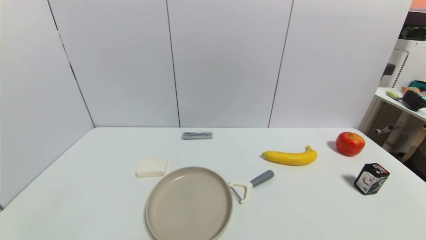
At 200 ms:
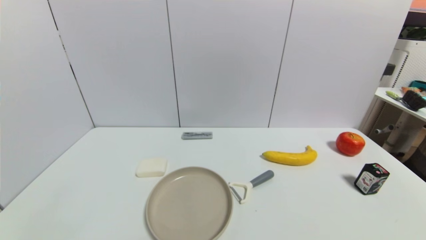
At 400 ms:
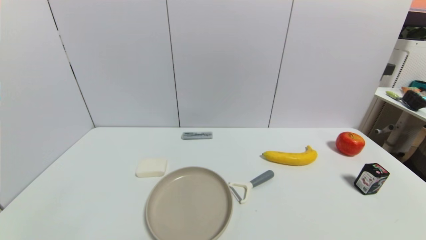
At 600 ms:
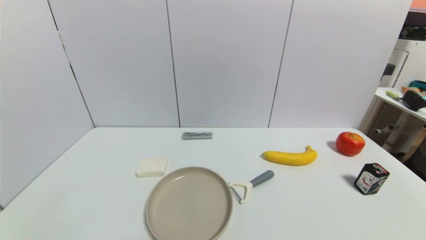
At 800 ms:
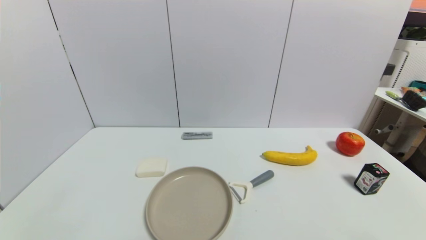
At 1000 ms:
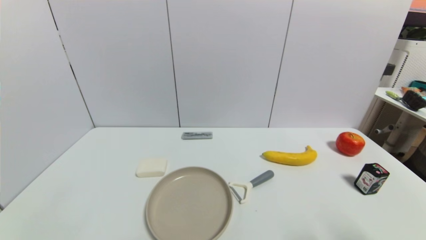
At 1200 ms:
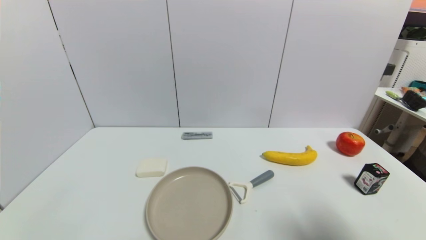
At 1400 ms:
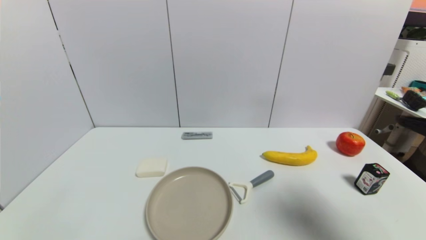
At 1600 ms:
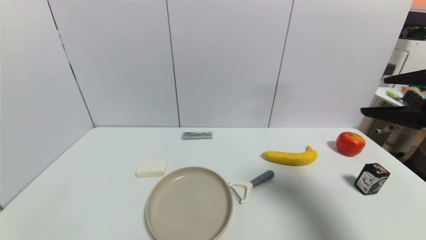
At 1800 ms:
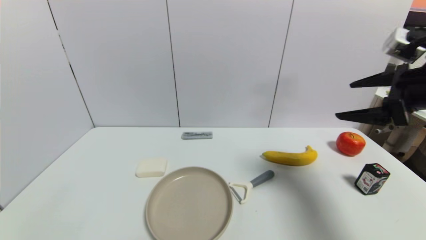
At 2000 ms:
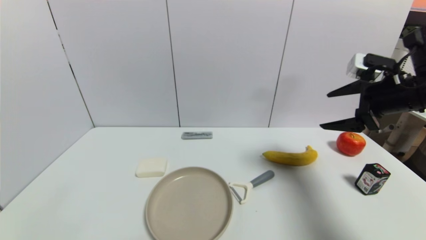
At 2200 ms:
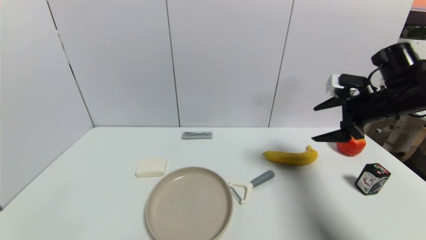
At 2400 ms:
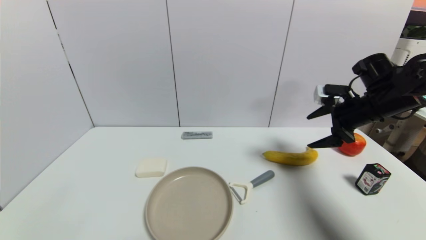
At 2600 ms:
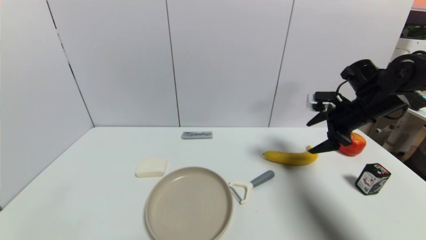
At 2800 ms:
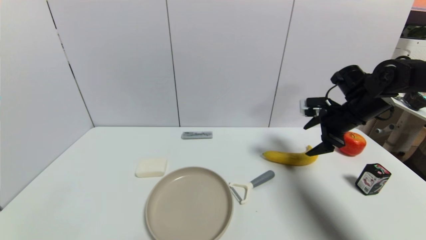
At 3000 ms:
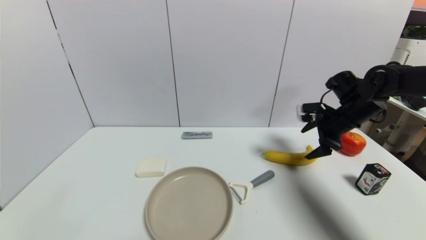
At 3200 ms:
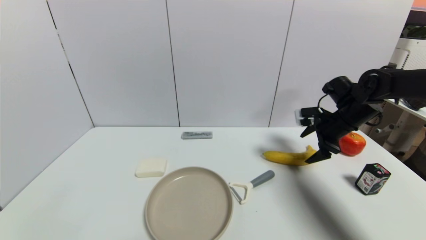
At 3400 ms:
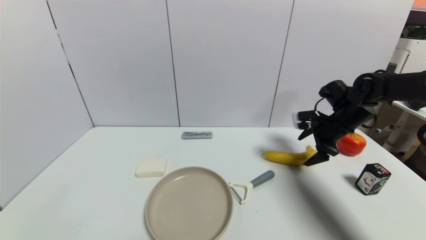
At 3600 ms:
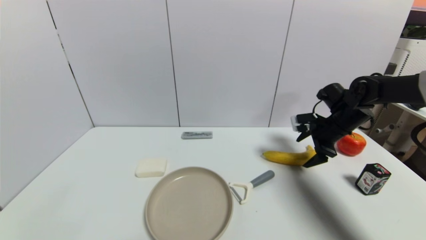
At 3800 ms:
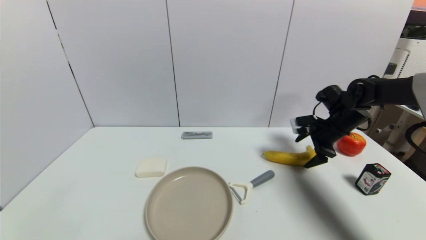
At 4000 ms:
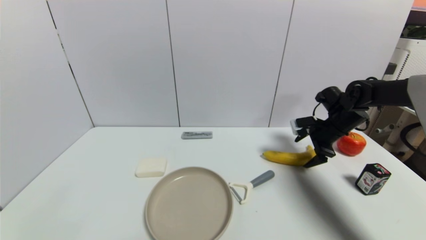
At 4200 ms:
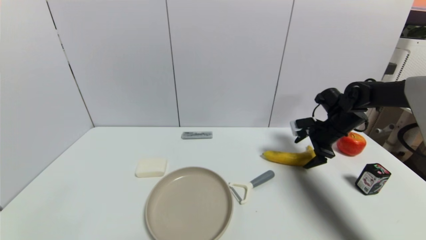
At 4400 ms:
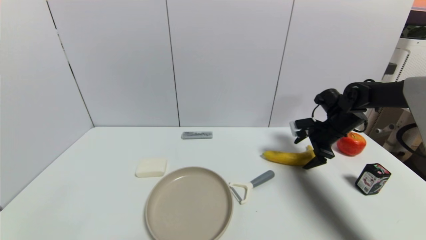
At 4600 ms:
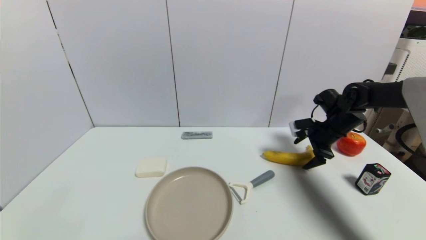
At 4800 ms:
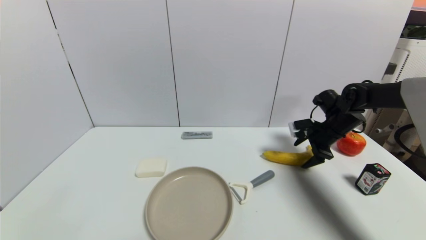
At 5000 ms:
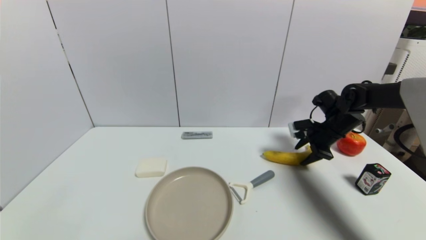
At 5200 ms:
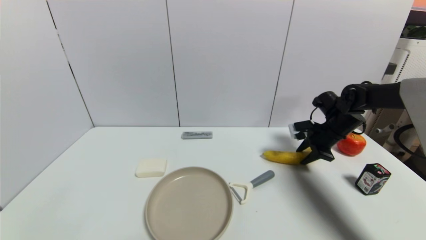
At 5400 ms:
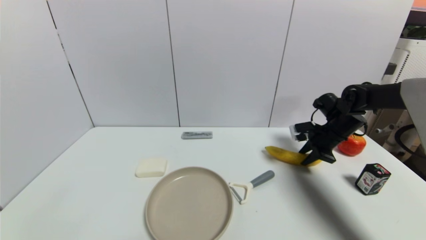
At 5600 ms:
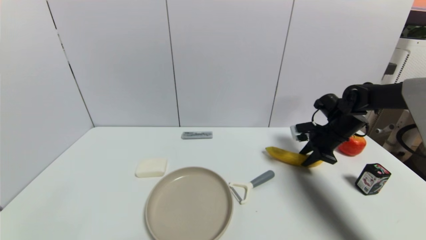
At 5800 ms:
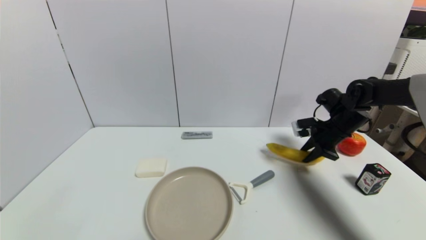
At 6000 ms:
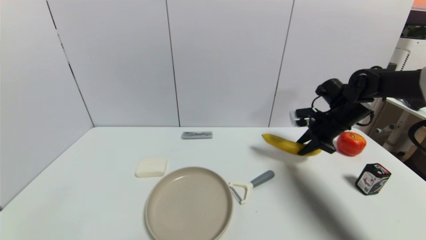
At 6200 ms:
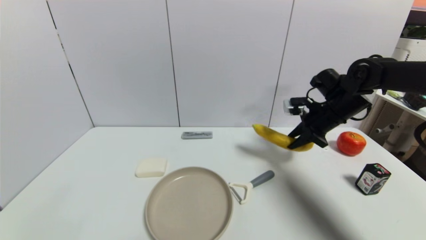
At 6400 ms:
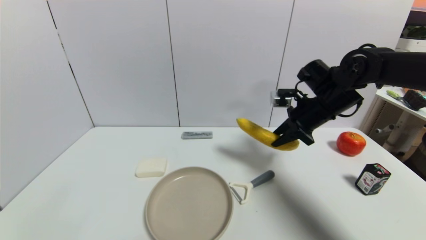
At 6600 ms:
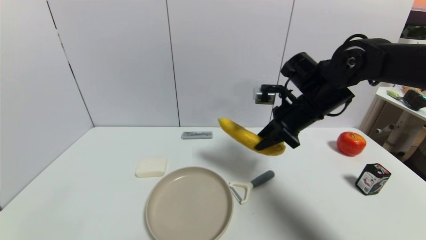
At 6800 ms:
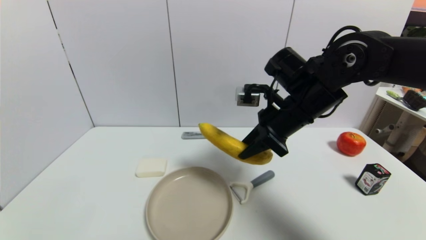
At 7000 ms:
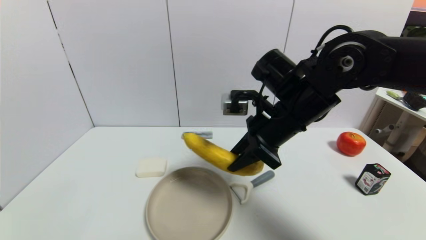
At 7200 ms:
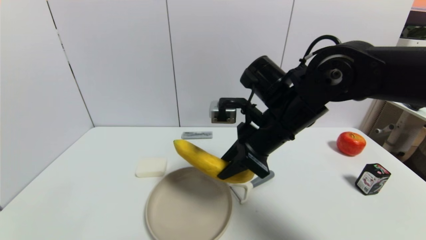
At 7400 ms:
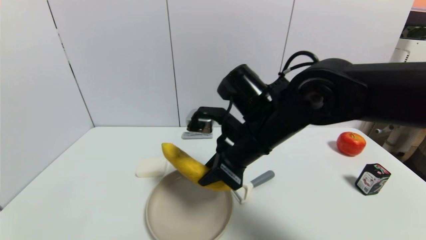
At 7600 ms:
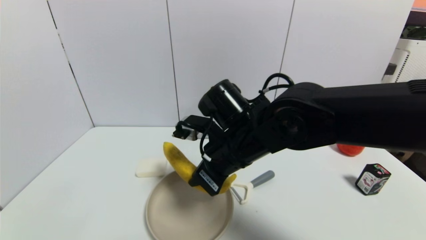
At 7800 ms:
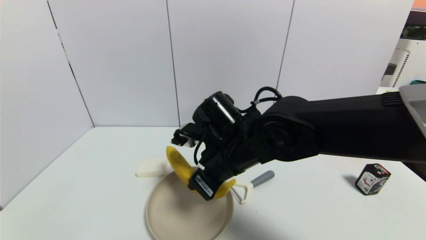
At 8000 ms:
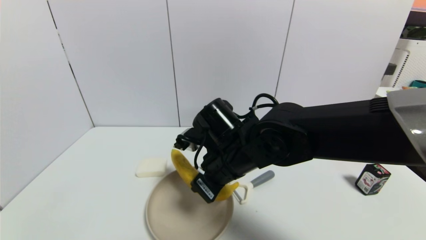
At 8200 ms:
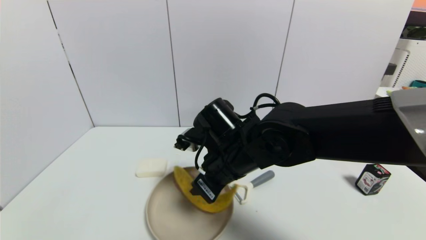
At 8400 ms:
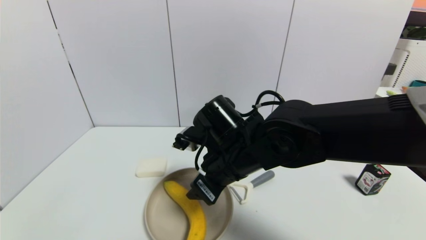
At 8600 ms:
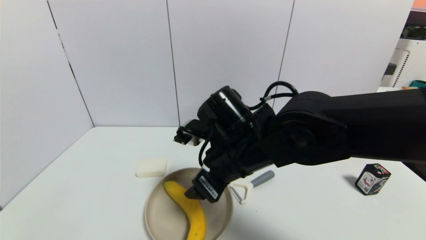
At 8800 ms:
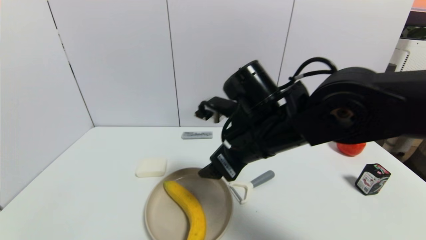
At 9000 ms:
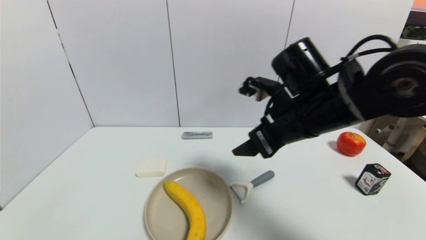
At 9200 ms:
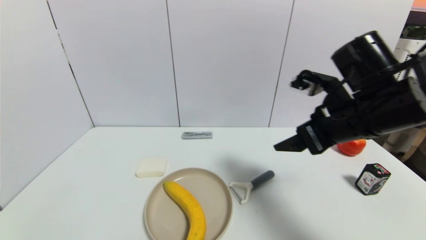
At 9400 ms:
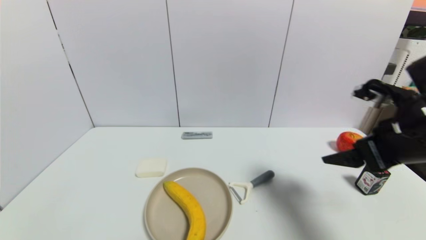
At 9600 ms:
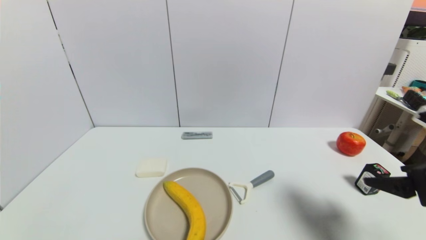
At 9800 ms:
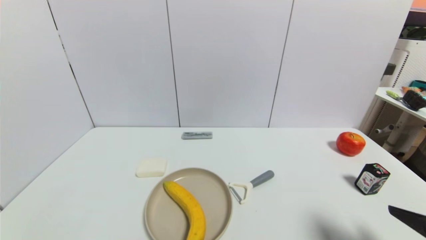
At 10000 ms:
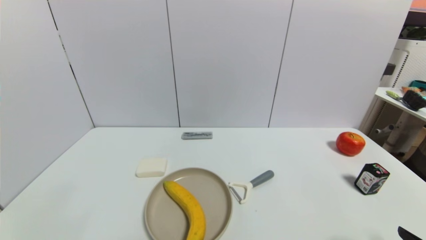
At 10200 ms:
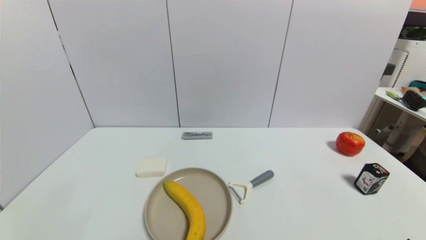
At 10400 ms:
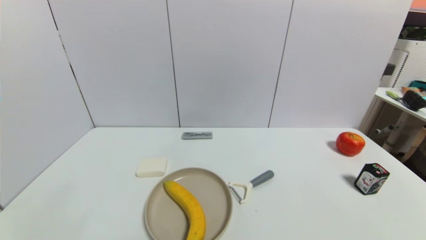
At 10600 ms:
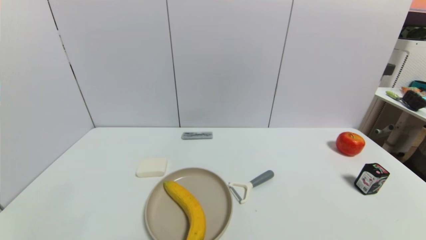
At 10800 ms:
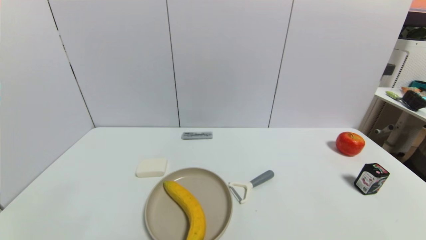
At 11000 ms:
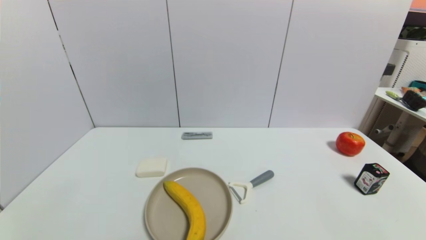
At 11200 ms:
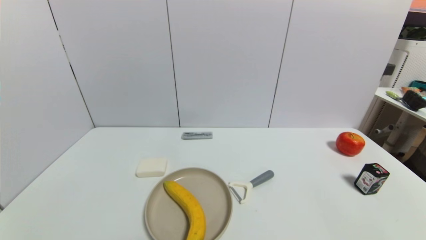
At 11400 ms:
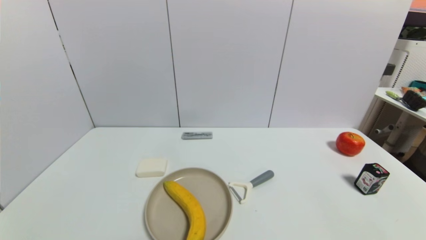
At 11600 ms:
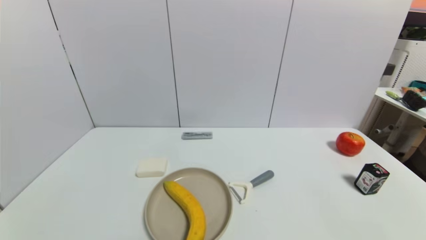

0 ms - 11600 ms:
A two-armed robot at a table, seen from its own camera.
Task of the whole recording: use a gripper to pick the target object and place on the brown plate.
Step, 0 ms - 5400 ms: Grasp the banana with the right gripper.
Step, 5600 ms - 8400 ms: Place the banana on the brown plate with the right gripper.
0 ms - 1400 ms: The right gripper goes some 25 cm upward and forward.
1400 ms - 2800 ms: The right gripper is displaced forward and downward by about 25 cm.
2800 ms - 4400 ms: The right gripper moves downward, approximately 5 cm.
4400 ms - 5800 ms: The right gripper closes up.
5800 ms - 7200 ms: The right gripper is displaced to the left, backward and upward by about 30 cm.
7200 ms - 8800 ms: The right gripper opens its fingers.
8800 ms - 10200 ms: The right gripper is displaced to the right, backward and downward by about 40 cm.

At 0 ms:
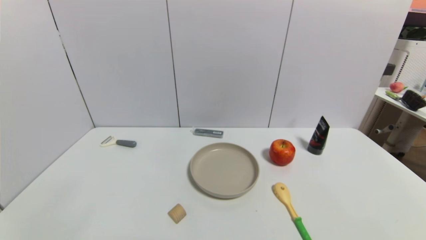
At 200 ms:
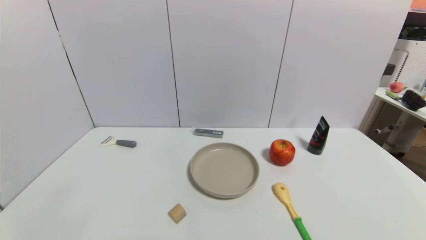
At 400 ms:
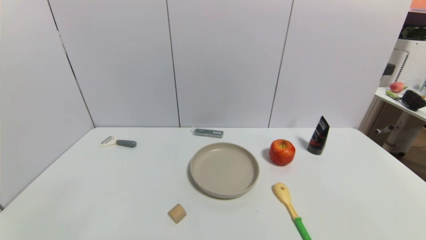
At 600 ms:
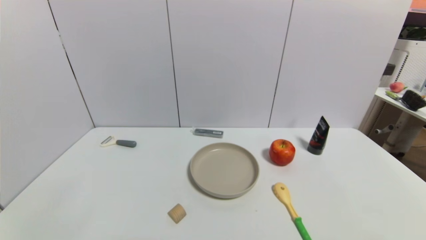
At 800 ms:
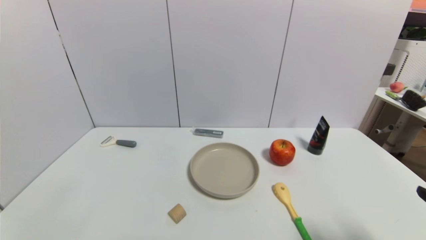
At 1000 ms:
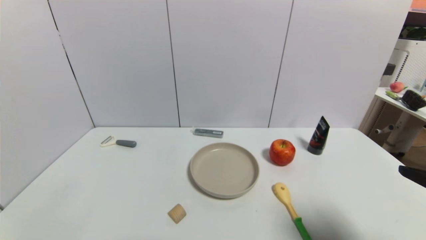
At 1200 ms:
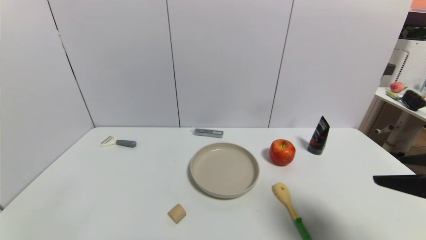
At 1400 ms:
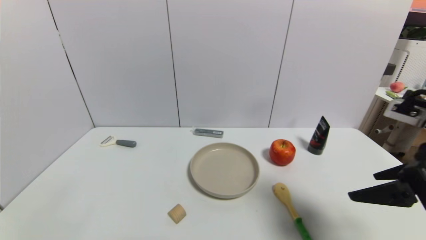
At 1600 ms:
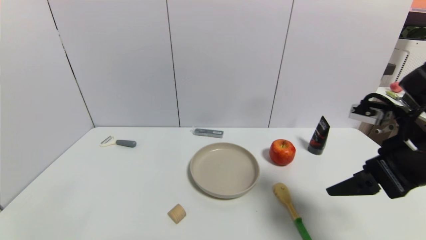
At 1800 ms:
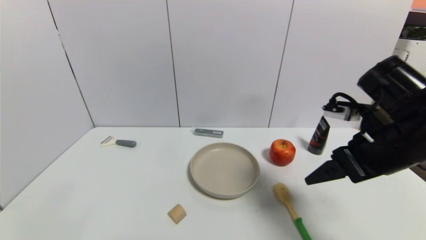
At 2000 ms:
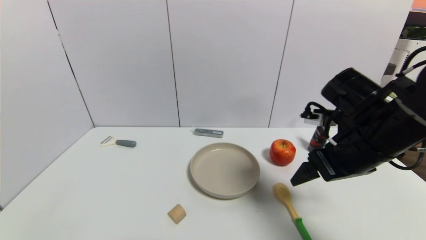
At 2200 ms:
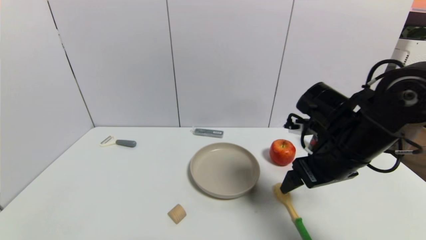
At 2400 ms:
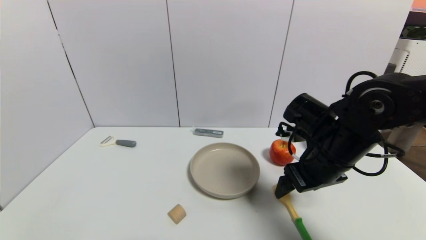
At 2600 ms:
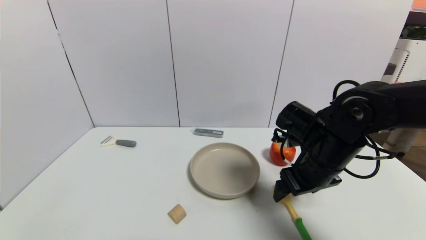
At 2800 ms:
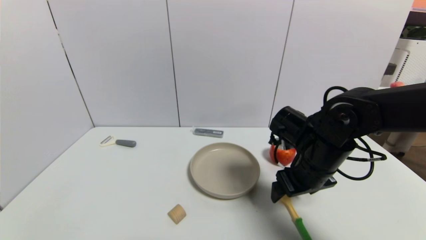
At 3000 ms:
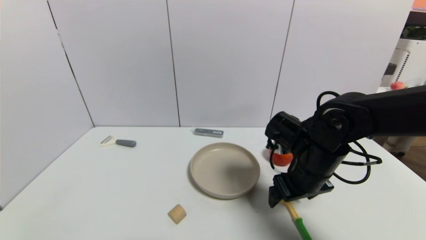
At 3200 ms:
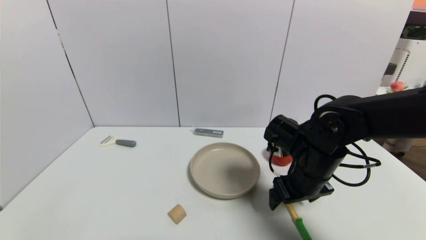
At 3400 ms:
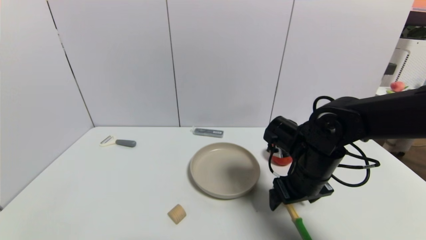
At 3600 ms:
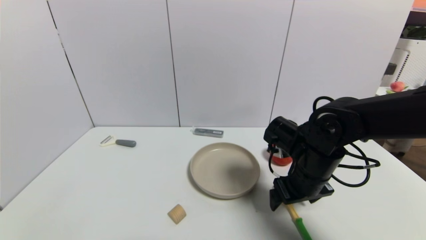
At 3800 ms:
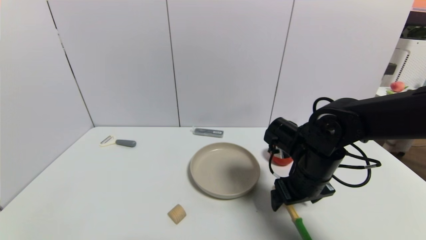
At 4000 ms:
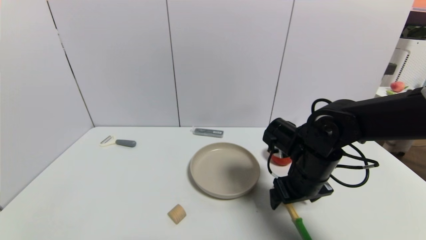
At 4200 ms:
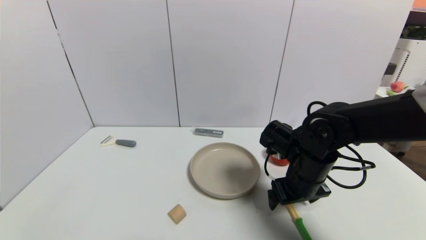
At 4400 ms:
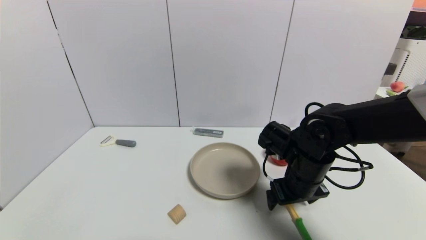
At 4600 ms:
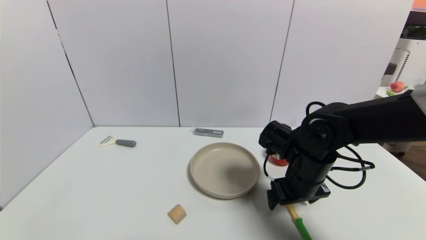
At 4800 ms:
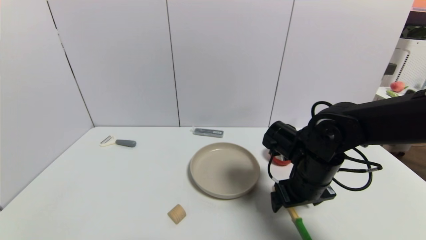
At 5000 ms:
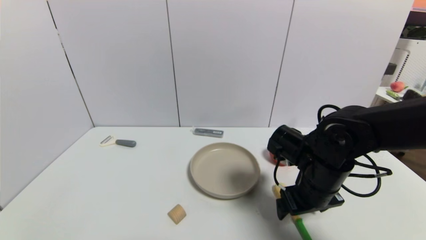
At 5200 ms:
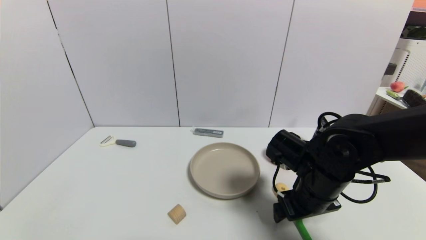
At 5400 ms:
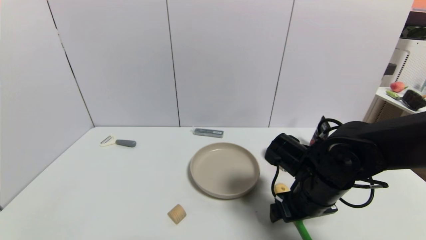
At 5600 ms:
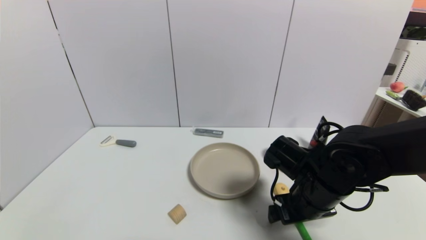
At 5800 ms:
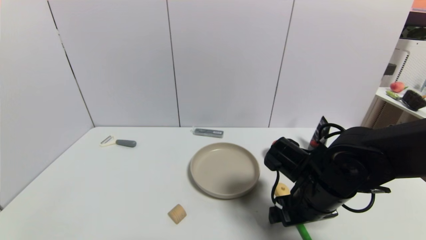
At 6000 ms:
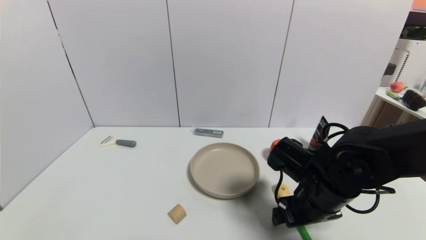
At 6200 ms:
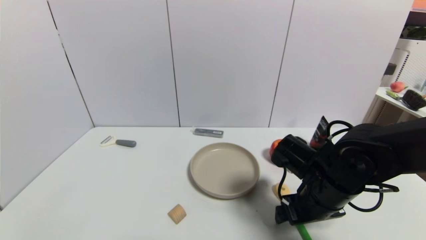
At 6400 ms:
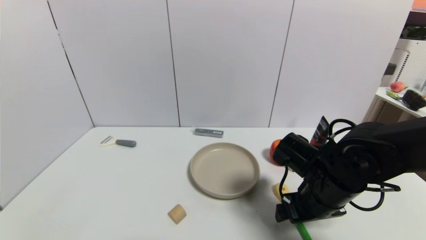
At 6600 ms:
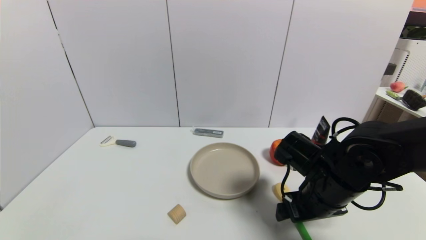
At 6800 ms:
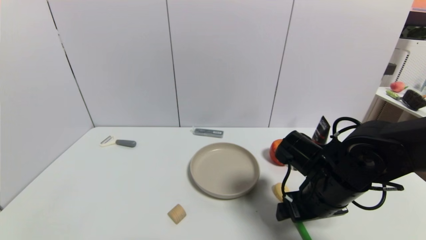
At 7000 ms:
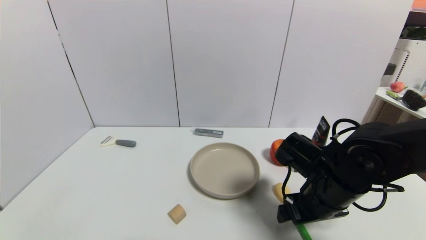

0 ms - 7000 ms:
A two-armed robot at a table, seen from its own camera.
Task of the whole recording: use a gripper to pick the target object and place on the brown plate.
0 ms - 1400 ms: The right gripper goes some 25 cm upward and forward.
1400 ms - 2800 ms: The right gripper moves forward, to the left and downward, about 20 cm.
2800 ms - 7000 ms: The grippers make only small movements.
